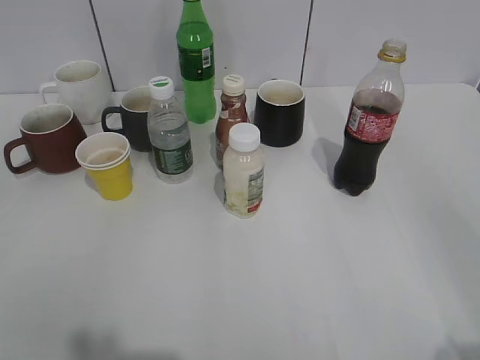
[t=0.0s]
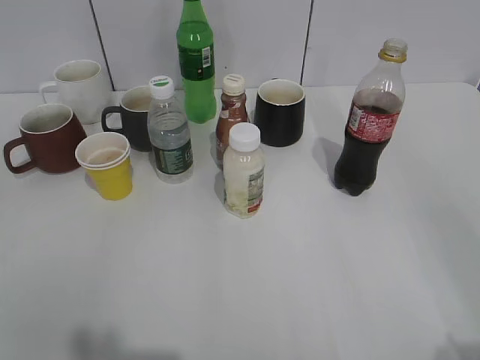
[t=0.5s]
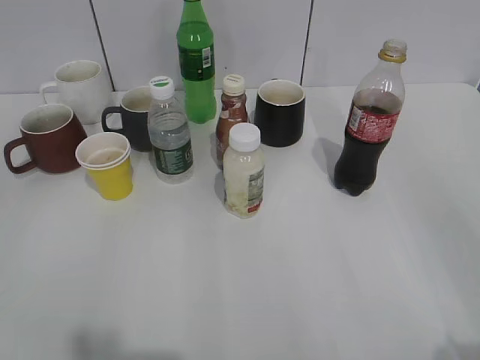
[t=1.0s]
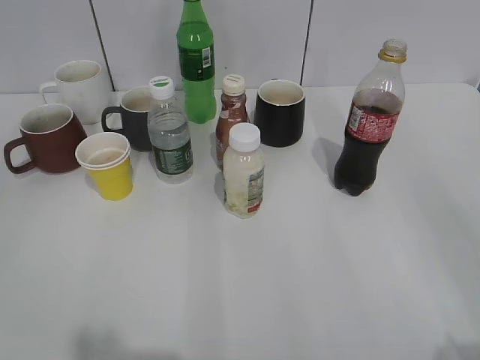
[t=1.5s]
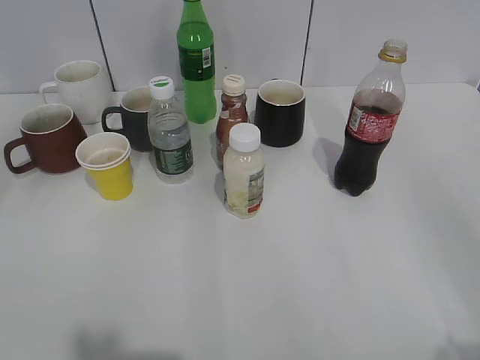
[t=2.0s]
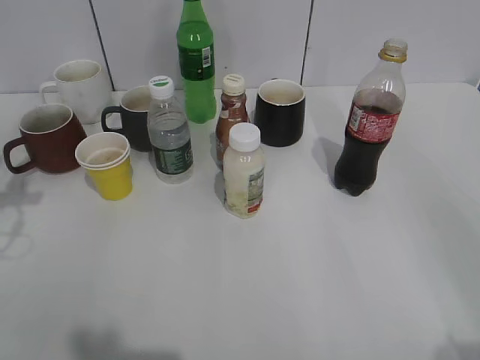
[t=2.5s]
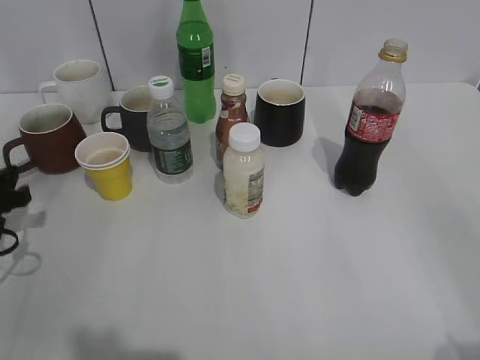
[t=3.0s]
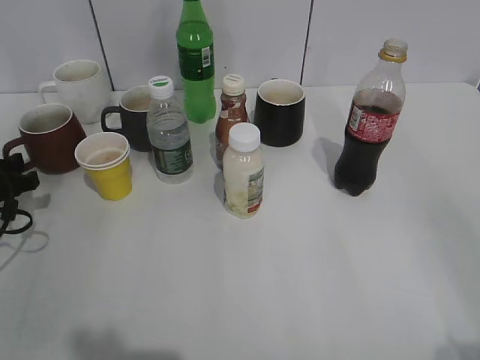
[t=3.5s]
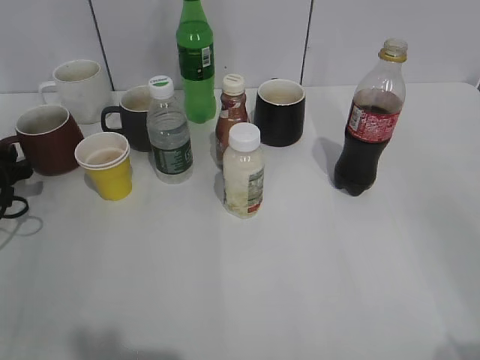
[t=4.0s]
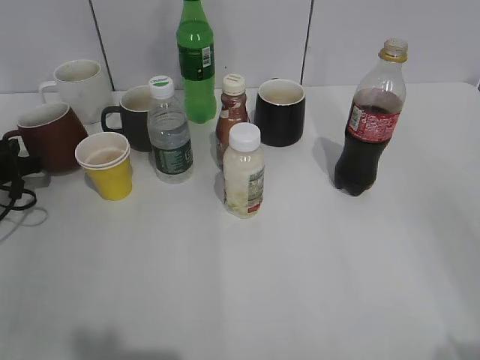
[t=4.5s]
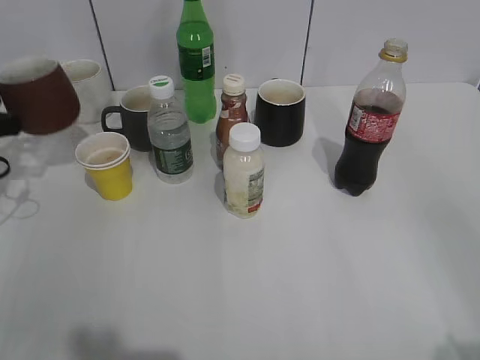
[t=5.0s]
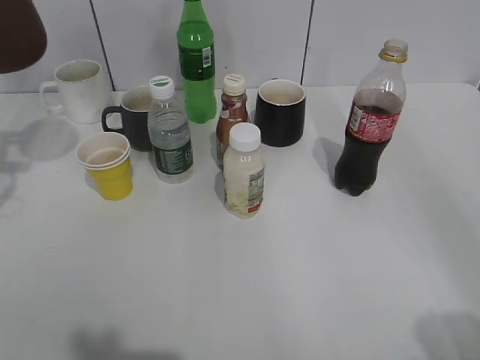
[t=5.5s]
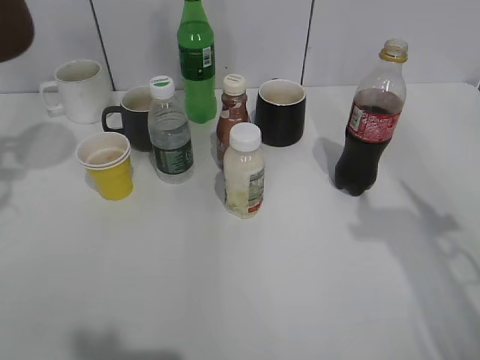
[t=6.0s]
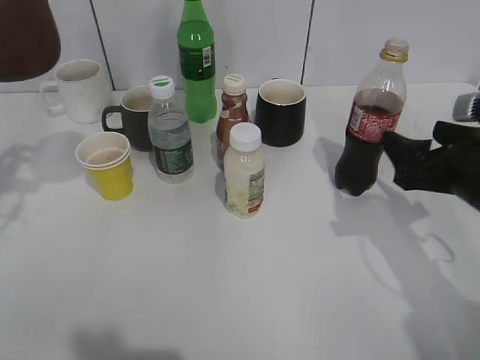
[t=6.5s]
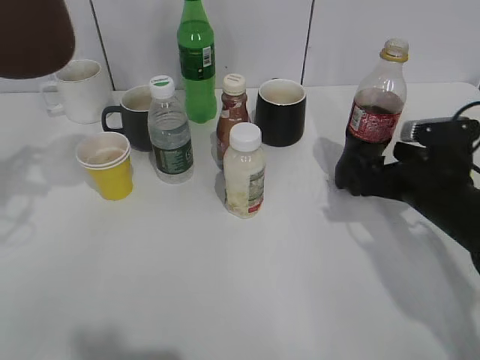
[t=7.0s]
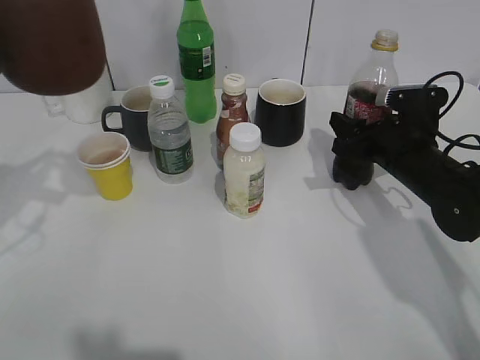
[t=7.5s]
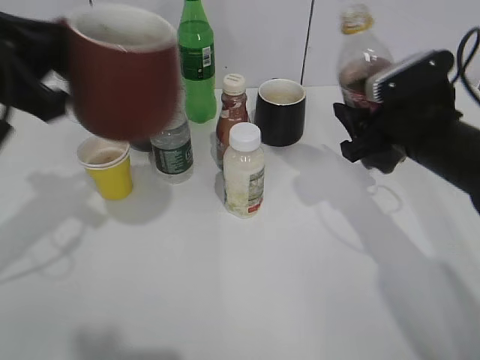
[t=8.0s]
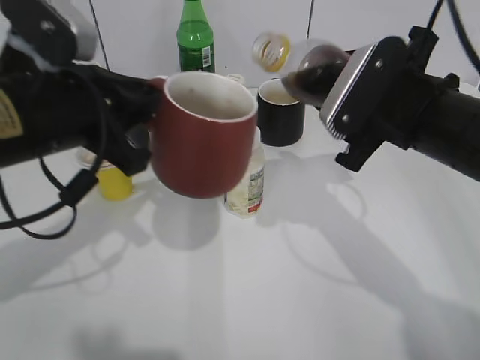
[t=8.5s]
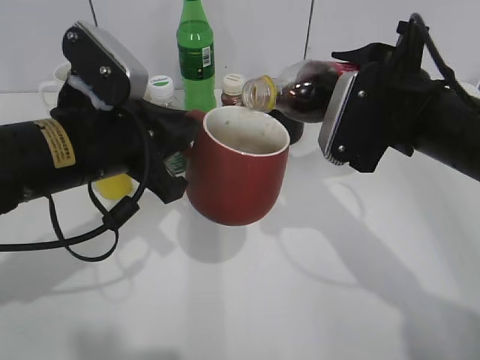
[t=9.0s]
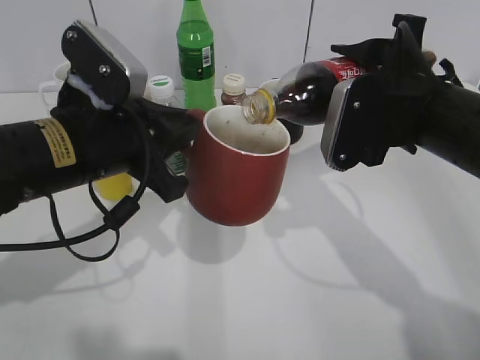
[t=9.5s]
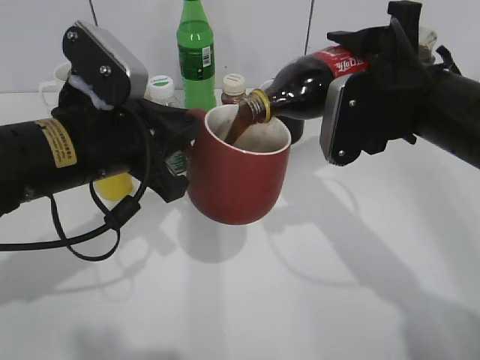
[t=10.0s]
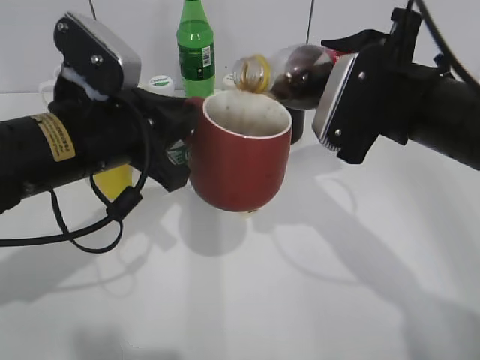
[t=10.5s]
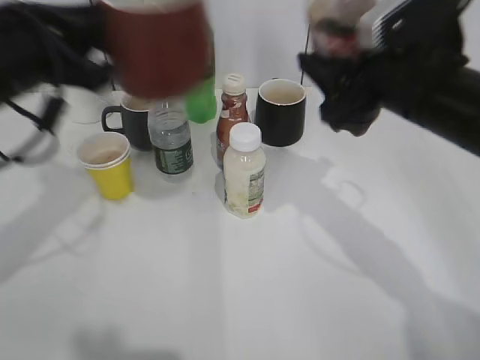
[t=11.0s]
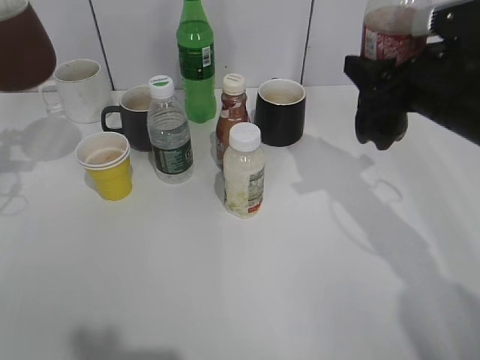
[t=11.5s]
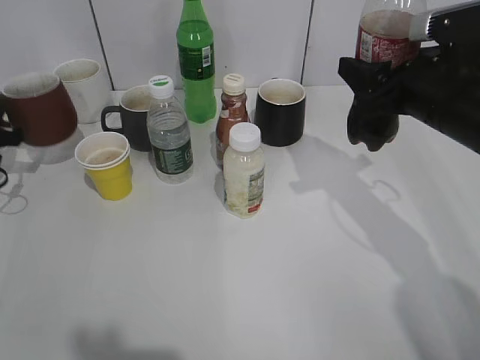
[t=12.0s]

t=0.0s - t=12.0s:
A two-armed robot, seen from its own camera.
Step, t=2.0s - t=4.0s: Grasp the red cup with left gripper.
Step, t=5.0s - t=5.5s: Lift the red cup with left gripper.
Step, t=6.0s - t=7.0s: Grasp the bottle with cola with right gripper.
Step, t=8.0s - t=10.5s: Pour the cola from bottle to cup with right gripper.
t=2.0s - t=4.0s: The left gripper shifts some 40 cm downward and forward, and opens.
t=4.0s - t=6.0s: The right gripper travels forward by roughly 15 cm, while the left gripper is displaced upward by some 20 cm, and closes up.
t=6.0s - t=8.0s: The right gripper heads forward, downward and to the left, covering approximately 20 cm, and closes; the left gripper is displaced to the right by roughly 10 cm.
t=8.0s - t=10.0s: The right gripper heads upward, covering about 5 cm. The left gripper goes some 10 cm to the right and downward.
t=10.0s - t=12.0s: The right gripper changes place by roughly 5 cm. The left gripper heads to the left, forward and downward, covering about 30 cm.

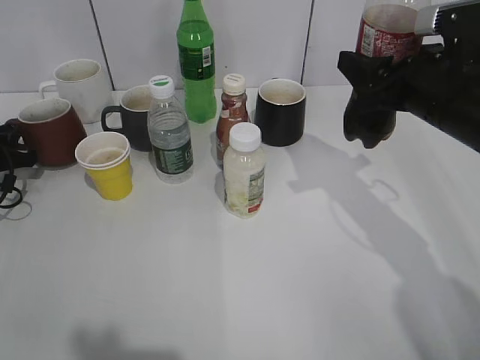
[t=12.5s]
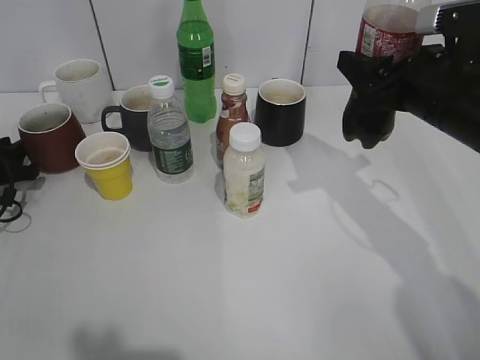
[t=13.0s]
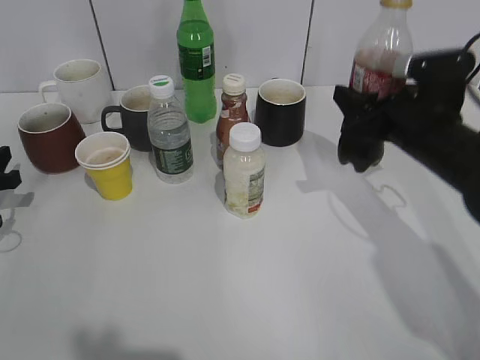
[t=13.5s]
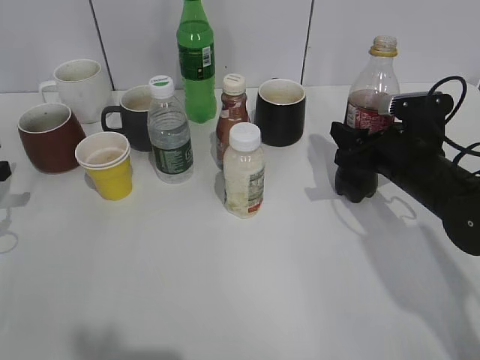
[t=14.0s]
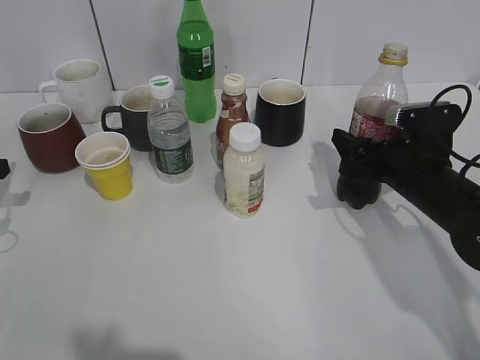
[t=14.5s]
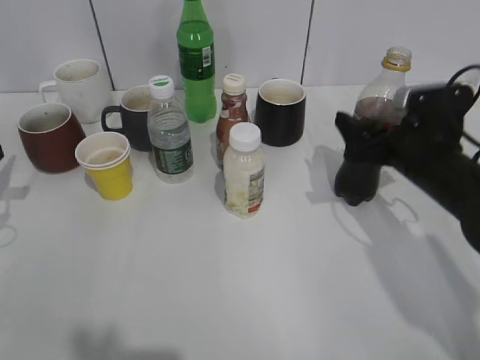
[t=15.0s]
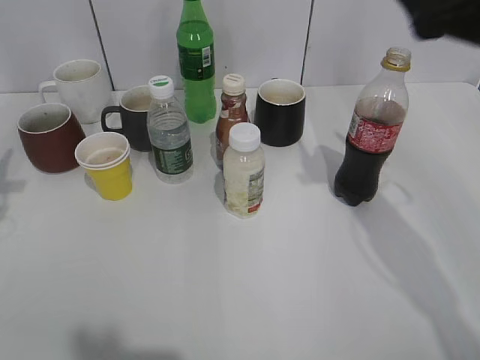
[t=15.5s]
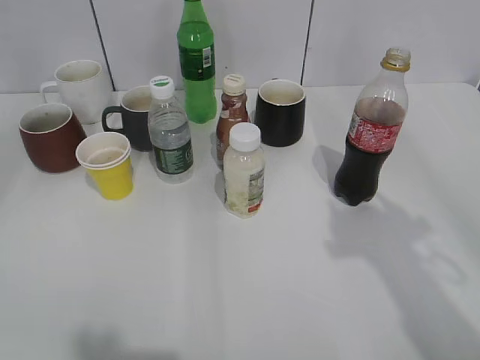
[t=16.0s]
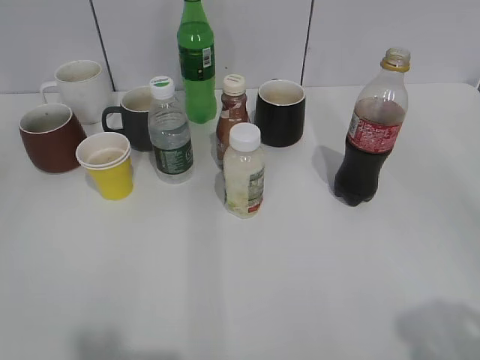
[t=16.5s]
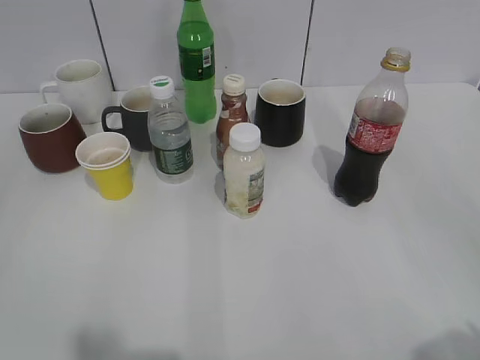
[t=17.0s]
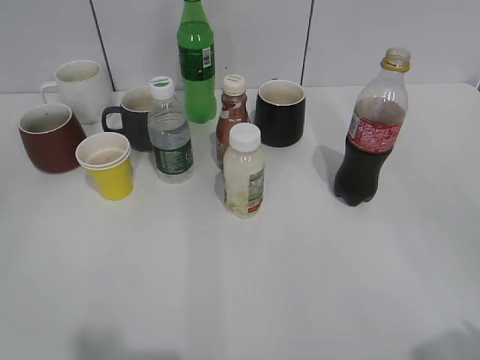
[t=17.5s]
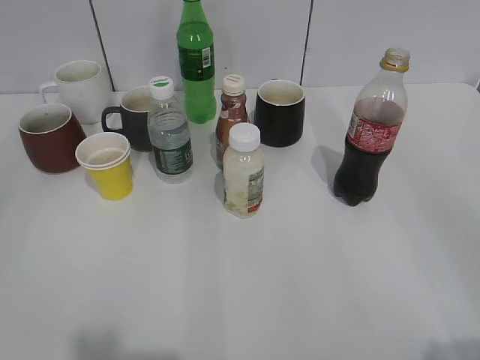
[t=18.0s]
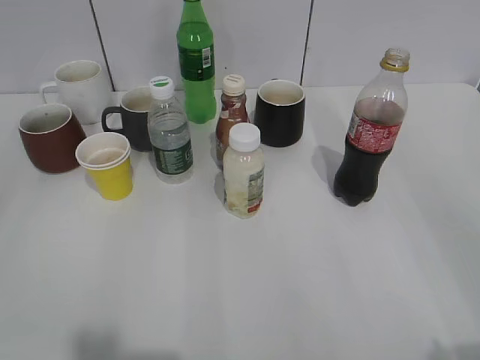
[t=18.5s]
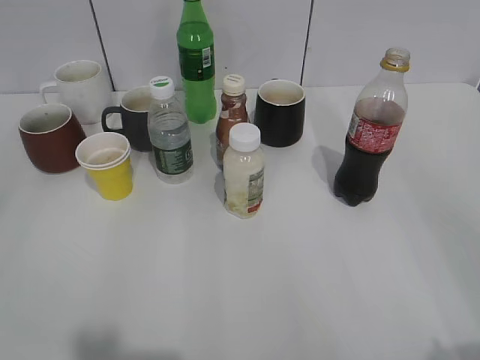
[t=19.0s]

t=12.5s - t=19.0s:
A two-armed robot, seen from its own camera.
Step, t=12.5s - t=15.0s: Place the cola bottle on the table with right gripper.
t=12.5s - t=14.5s: The left gripper heads backward, covering roughly 10 cm, and opens its fingers. Meanwhile the right gripper goes roughly 10 cm downward, and opens up.
t=14.5s - t=17.0s: The grippers both shift backward and upward by roughly 35 cm.

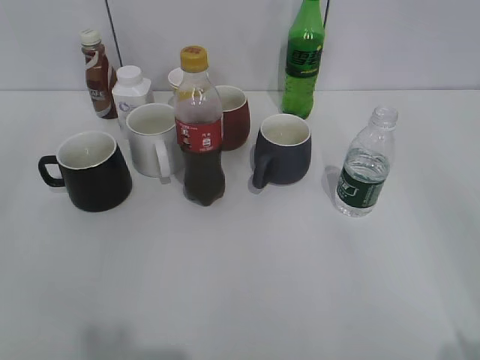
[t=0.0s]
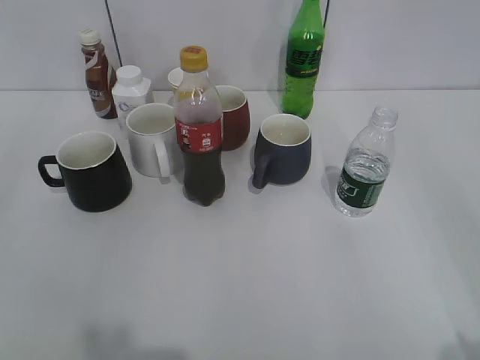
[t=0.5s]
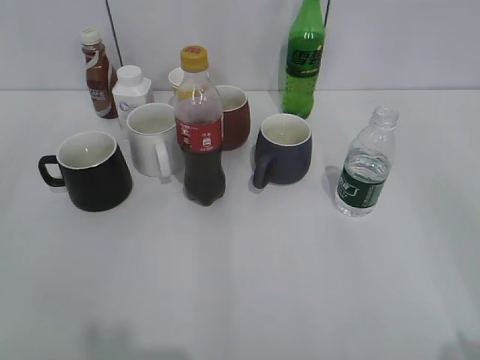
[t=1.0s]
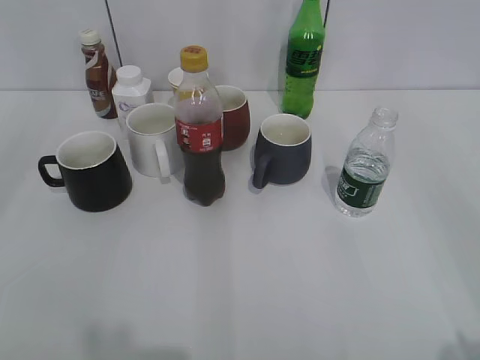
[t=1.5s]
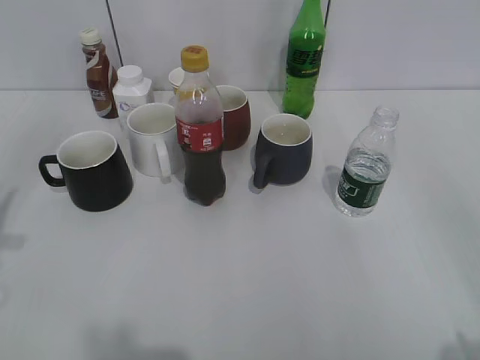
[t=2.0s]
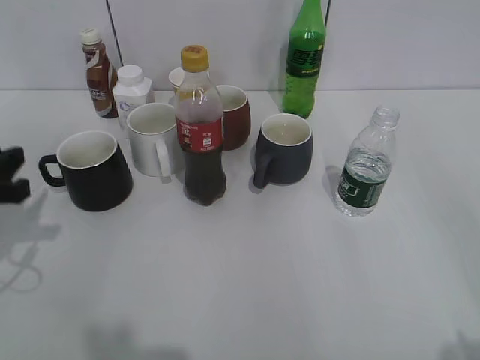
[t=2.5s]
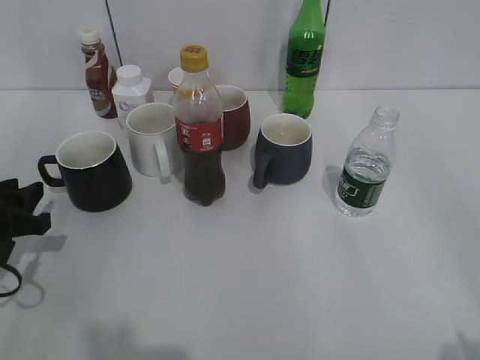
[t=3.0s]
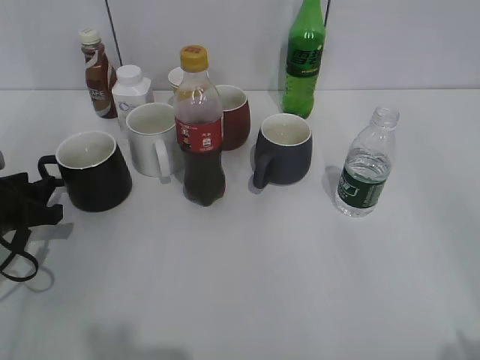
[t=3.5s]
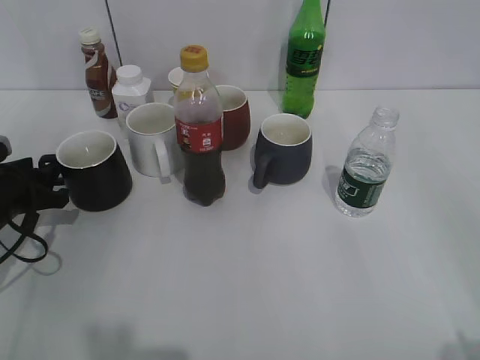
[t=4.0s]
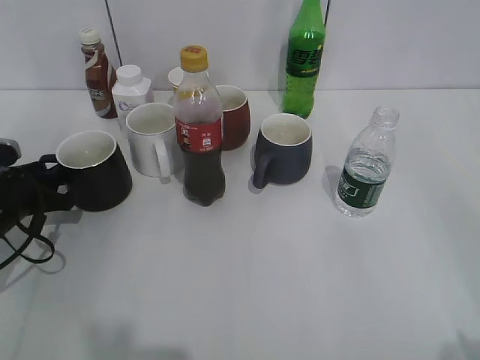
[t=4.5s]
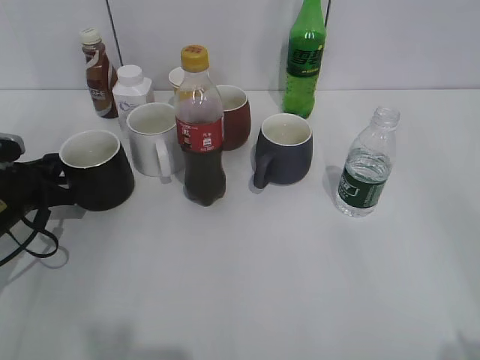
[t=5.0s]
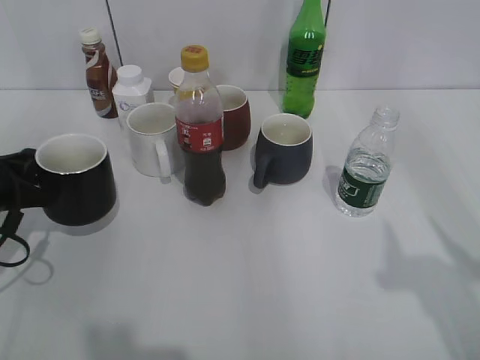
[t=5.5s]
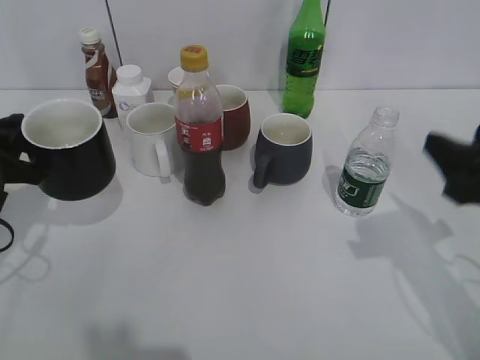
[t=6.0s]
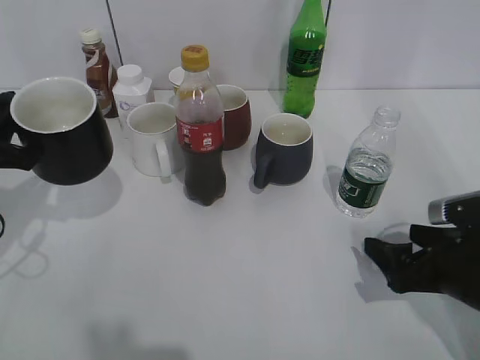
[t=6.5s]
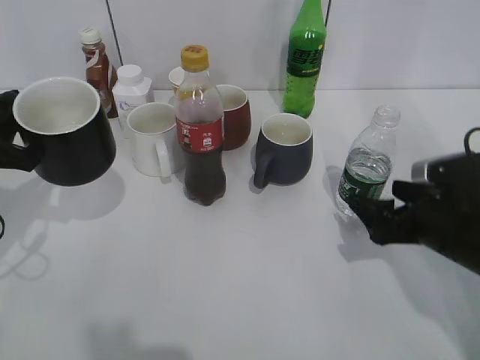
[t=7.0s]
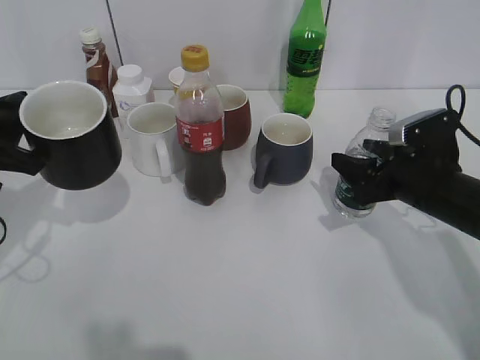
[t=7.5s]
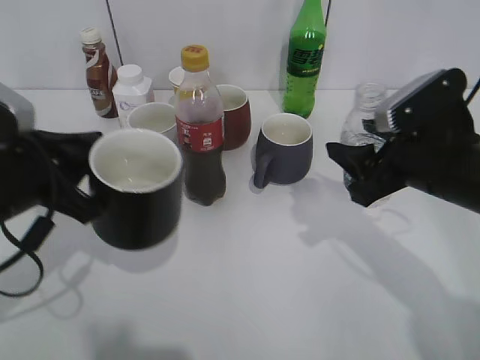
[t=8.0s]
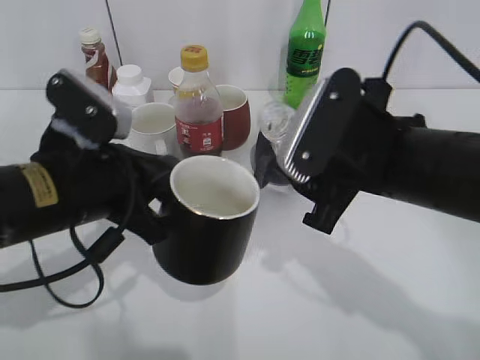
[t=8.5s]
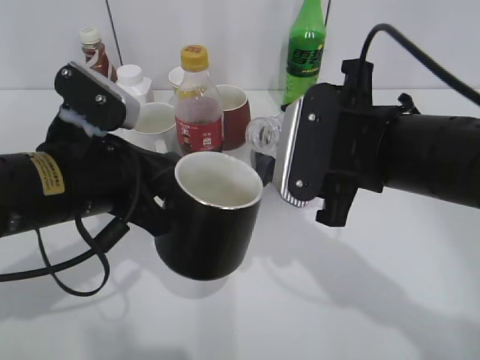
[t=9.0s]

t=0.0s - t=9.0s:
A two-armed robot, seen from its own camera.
Step, t=1.5s - t=4.5s: Grasp the black cup with left gripper.
Step, t=5.0s - t=5.5s: Lift the black cup with left gripper.
Step, t=6.5s - t=7.5s: Grasp the bottle with water with right gripper.
t=2.0s - t=4.5s: The left gripper moves downward and forward, approximately 25 cm.
t=4.5s - t=7.0s: The right gripper goes approximately 30 cm forward and downward, and opens; the left gripper moves upward, about 10 cm, and closes up.
t=7.0s - t=9.0s: The right gripper moves upward and to the left, roughly 20 cm, and closes, while the left gripper shifts approximately 15 cm to the right.
